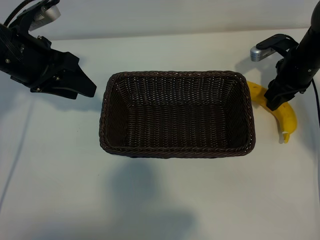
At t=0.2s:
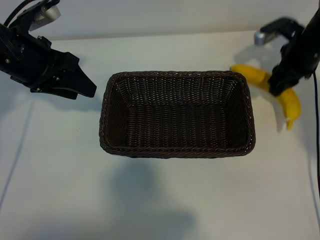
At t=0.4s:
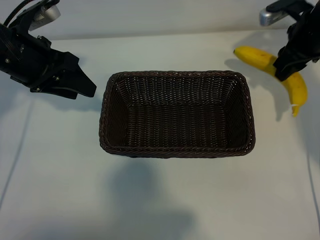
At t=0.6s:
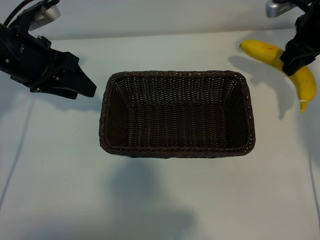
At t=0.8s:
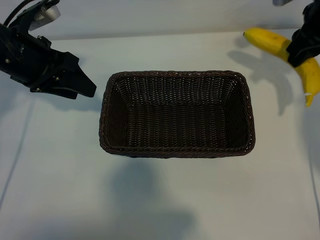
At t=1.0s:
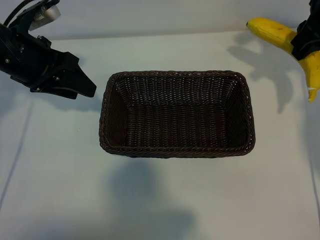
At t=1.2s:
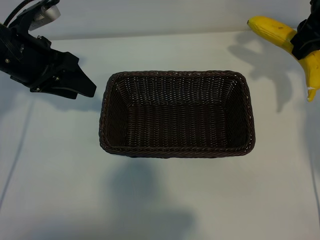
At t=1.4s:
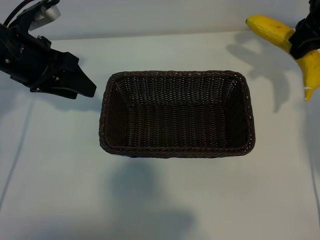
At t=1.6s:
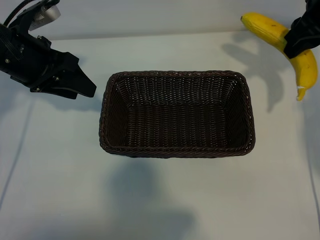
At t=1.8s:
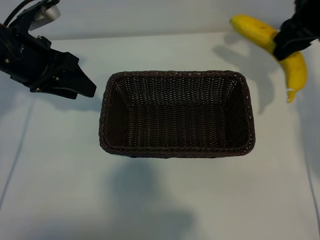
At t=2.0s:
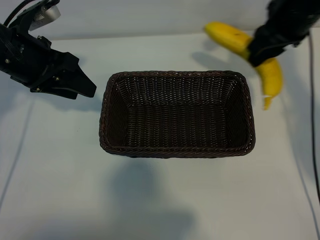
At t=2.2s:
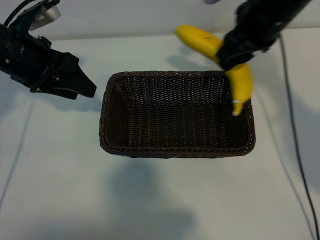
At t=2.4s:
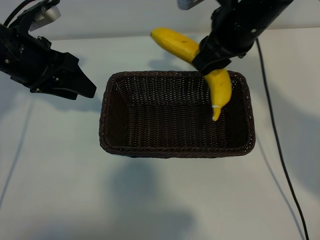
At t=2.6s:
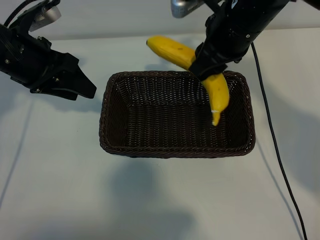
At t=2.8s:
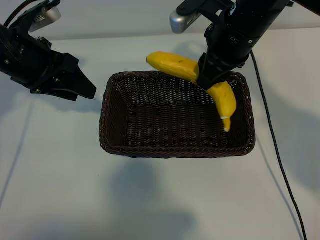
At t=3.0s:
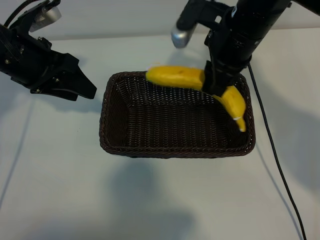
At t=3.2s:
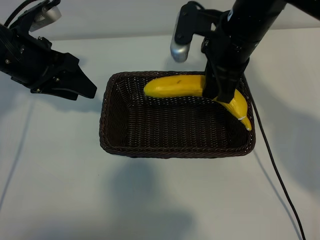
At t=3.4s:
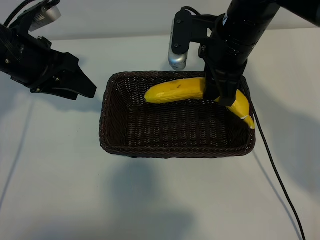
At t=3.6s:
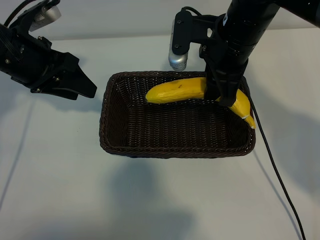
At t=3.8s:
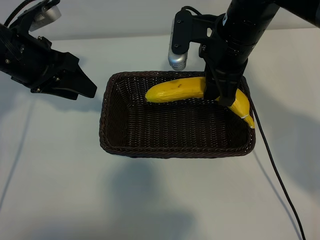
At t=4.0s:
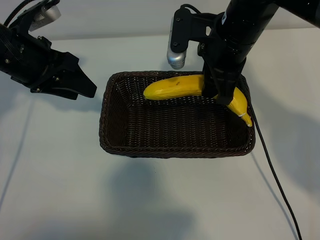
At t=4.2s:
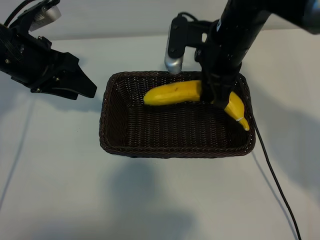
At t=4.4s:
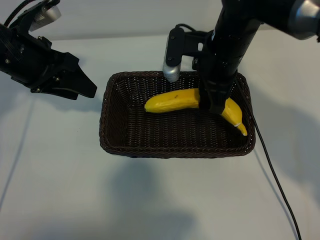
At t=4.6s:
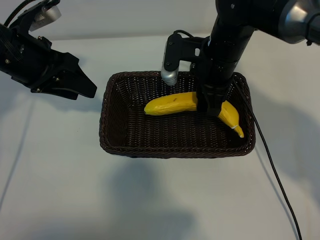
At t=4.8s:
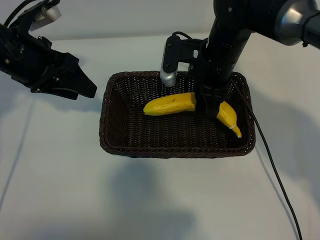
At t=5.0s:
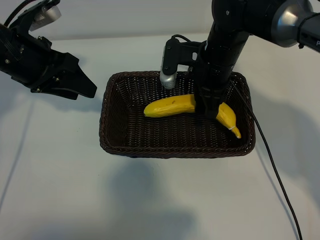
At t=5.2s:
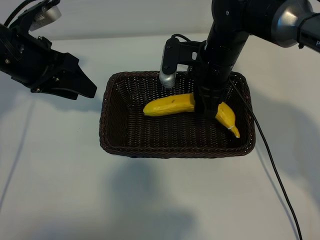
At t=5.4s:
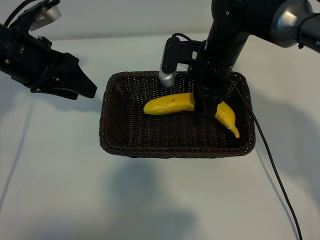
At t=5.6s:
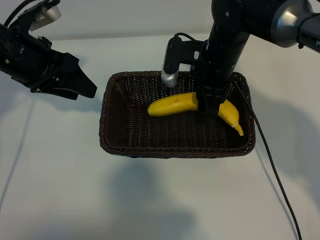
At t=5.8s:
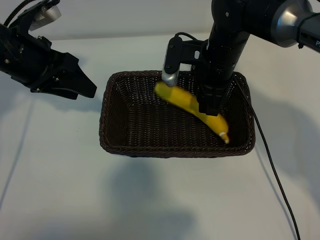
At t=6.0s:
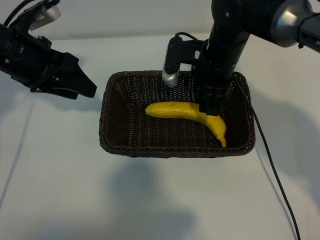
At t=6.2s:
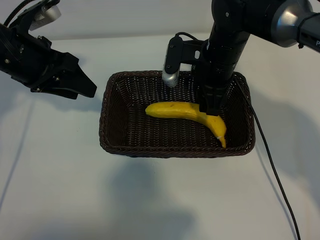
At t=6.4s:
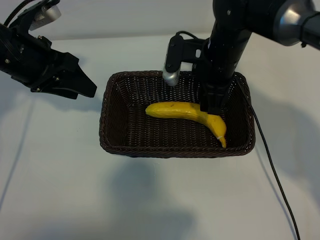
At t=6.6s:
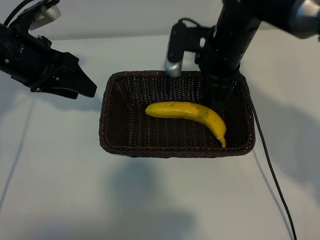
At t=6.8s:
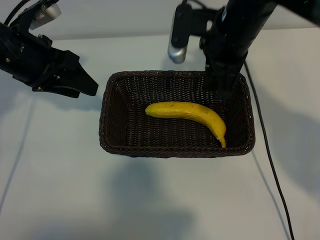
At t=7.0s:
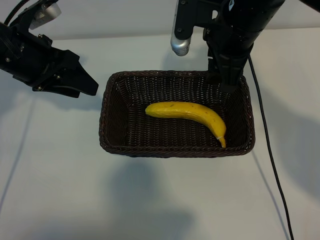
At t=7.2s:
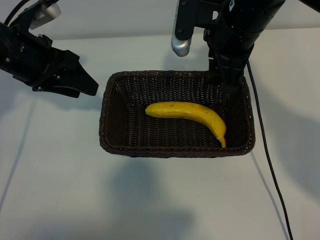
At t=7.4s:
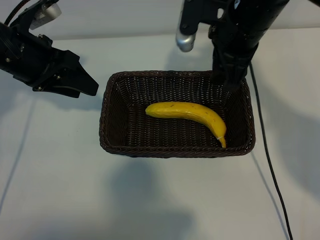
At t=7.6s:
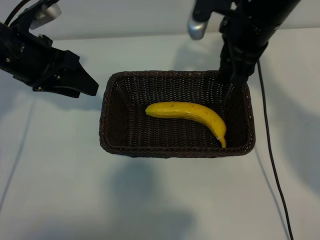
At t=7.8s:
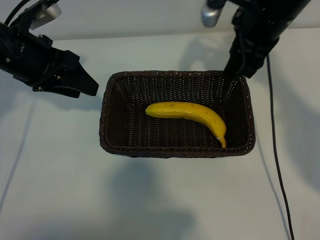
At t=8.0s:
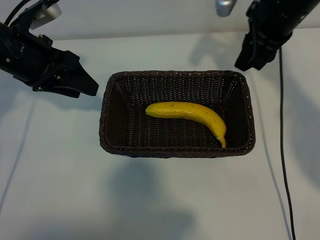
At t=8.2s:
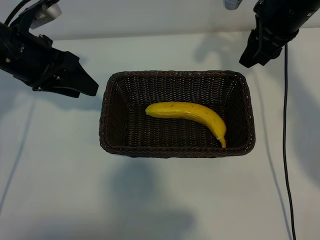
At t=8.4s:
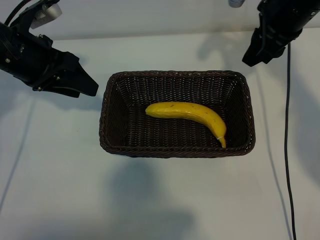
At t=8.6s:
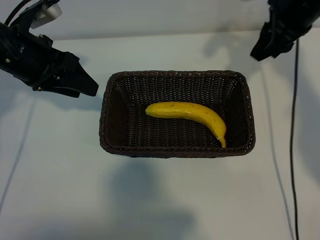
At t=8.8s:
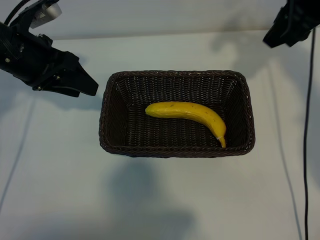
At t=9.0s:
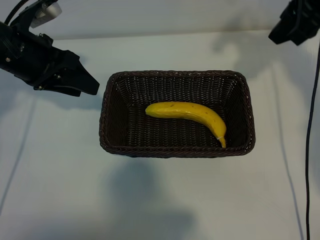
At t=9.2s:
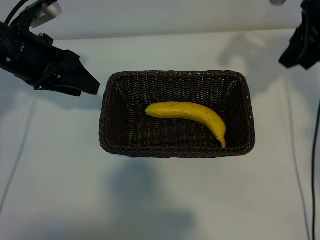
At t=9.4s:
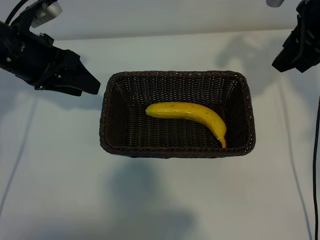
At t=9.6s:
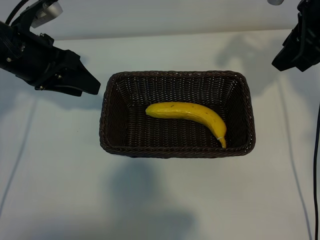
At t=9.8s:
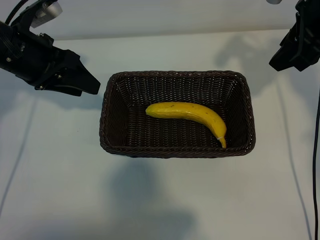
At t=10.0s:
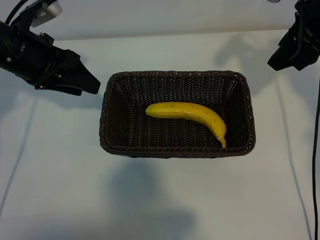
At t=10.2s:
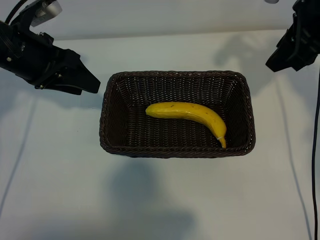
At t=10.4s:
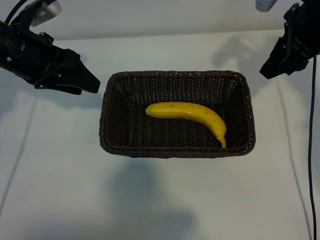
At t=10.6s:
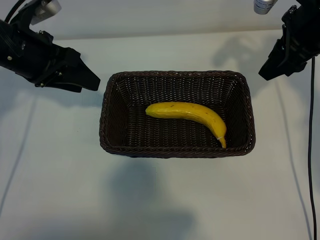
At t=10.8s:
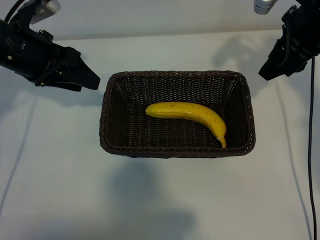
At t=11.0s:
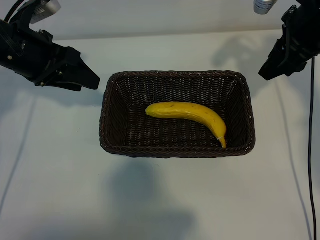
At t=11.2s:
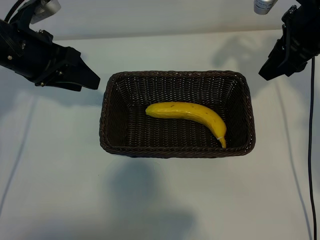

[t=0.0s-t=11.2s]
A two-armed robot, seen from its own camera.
Task of the whole recording: pick up the banana and put it into the basket.
Step, t=0.0s to t=6.0s: Place the banana in the basket with right gripper.

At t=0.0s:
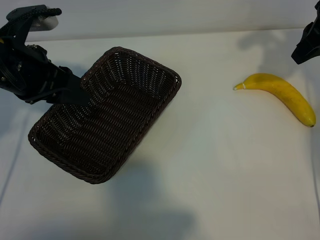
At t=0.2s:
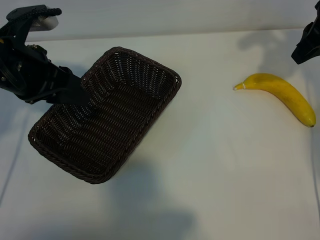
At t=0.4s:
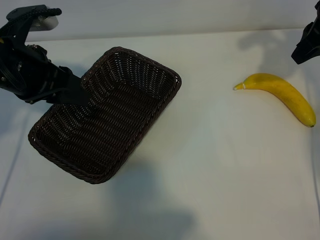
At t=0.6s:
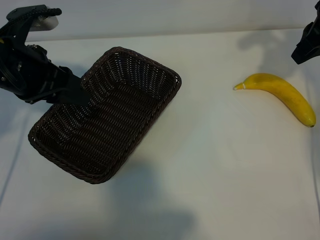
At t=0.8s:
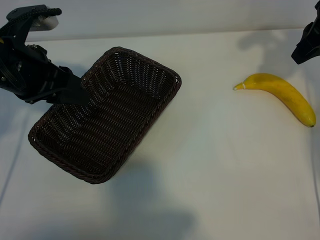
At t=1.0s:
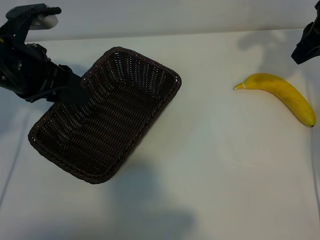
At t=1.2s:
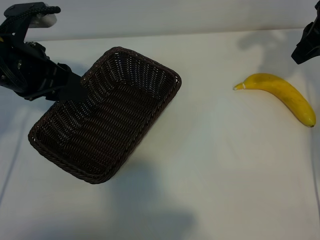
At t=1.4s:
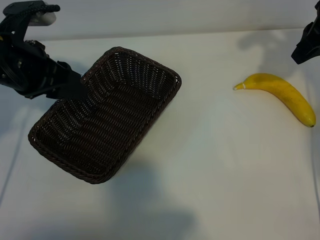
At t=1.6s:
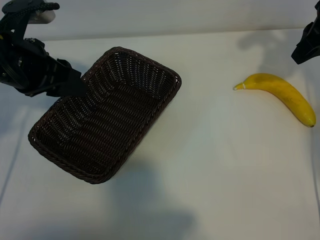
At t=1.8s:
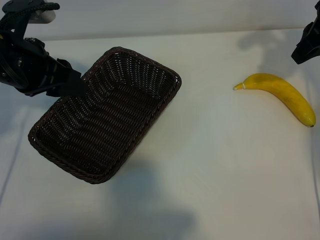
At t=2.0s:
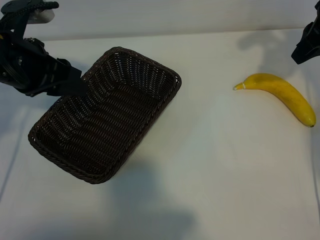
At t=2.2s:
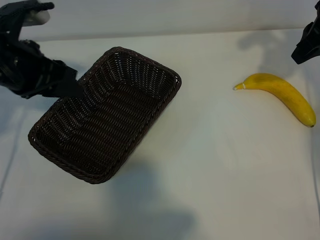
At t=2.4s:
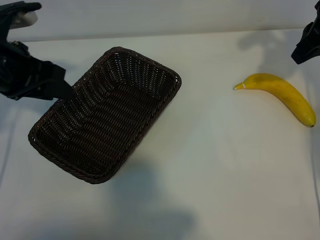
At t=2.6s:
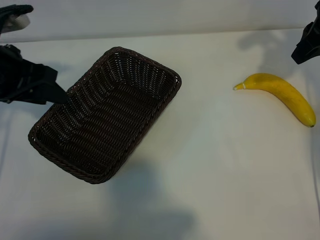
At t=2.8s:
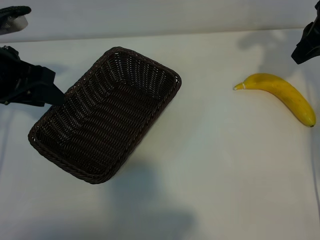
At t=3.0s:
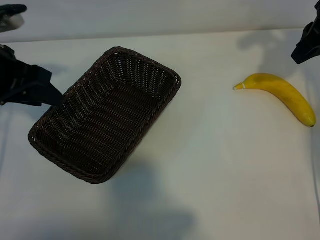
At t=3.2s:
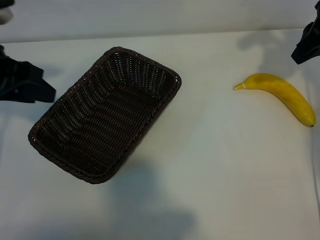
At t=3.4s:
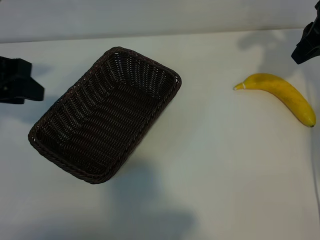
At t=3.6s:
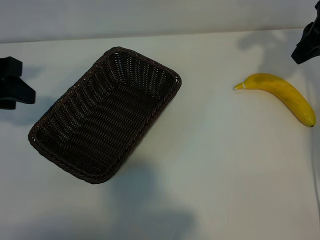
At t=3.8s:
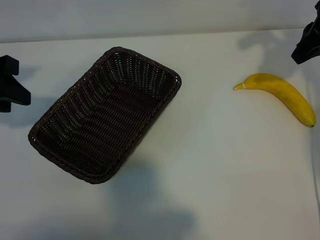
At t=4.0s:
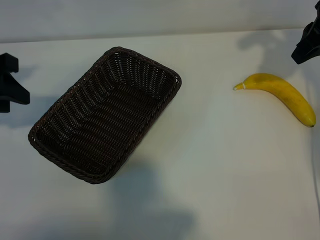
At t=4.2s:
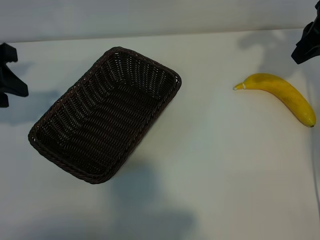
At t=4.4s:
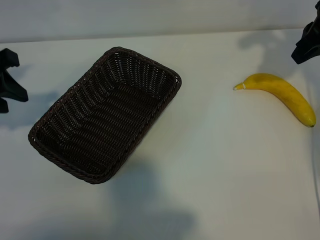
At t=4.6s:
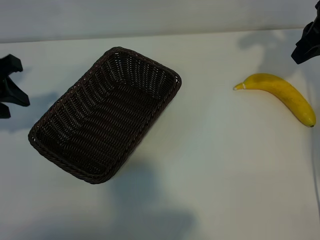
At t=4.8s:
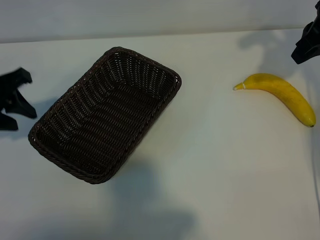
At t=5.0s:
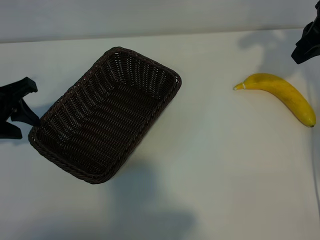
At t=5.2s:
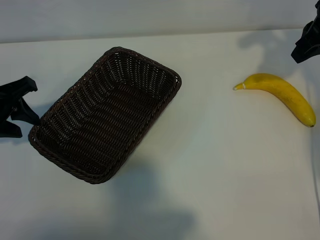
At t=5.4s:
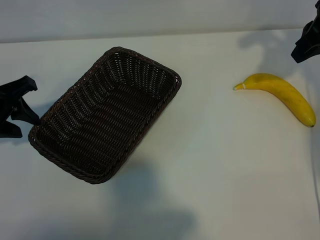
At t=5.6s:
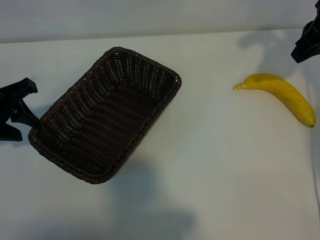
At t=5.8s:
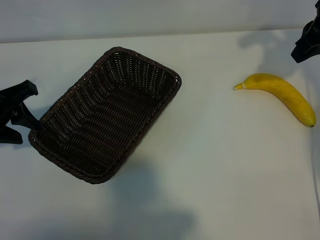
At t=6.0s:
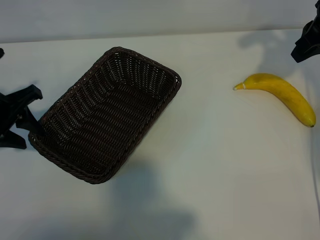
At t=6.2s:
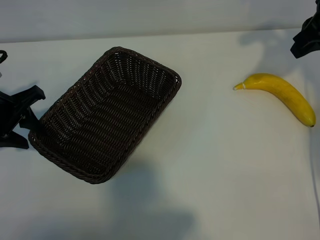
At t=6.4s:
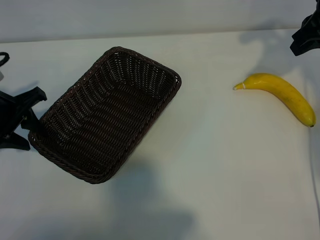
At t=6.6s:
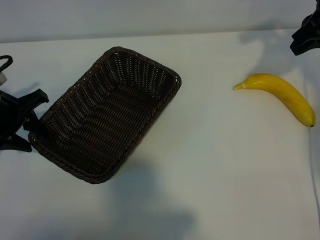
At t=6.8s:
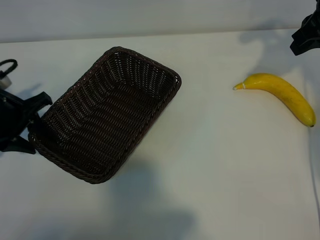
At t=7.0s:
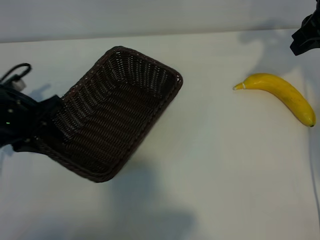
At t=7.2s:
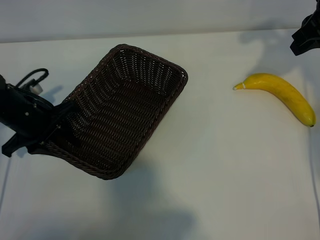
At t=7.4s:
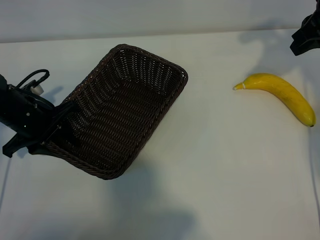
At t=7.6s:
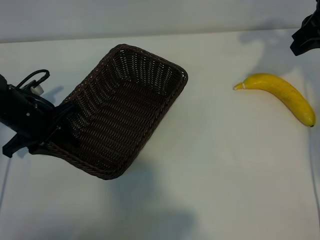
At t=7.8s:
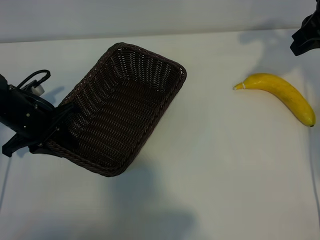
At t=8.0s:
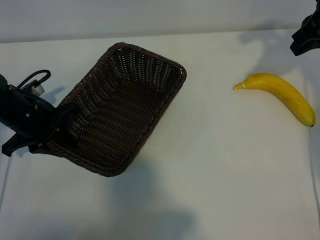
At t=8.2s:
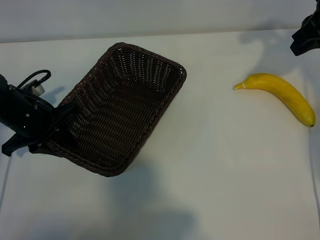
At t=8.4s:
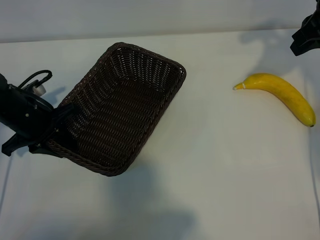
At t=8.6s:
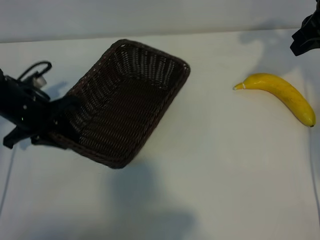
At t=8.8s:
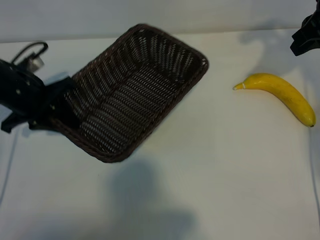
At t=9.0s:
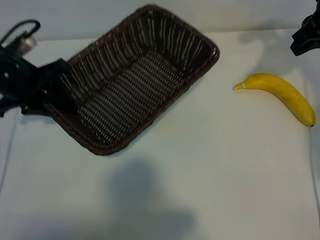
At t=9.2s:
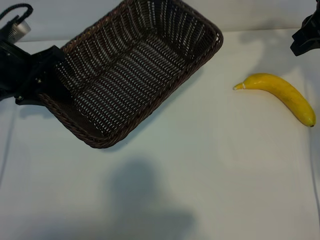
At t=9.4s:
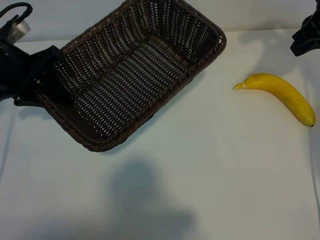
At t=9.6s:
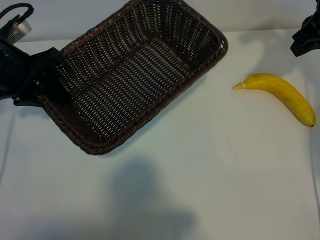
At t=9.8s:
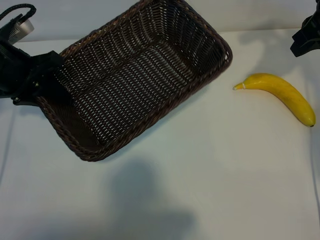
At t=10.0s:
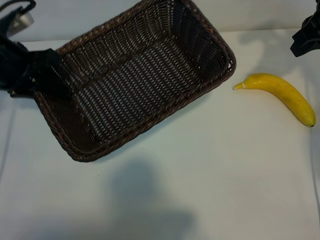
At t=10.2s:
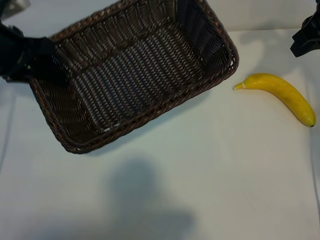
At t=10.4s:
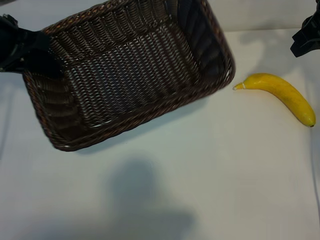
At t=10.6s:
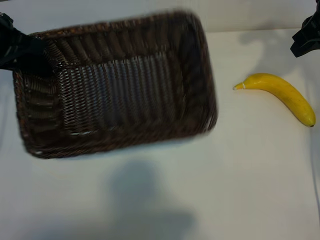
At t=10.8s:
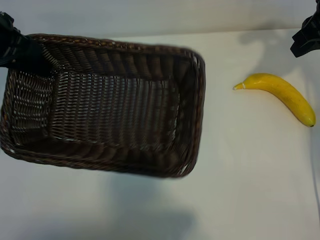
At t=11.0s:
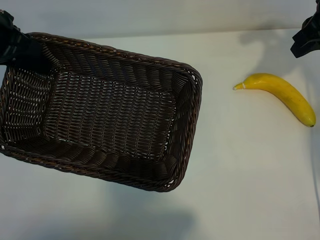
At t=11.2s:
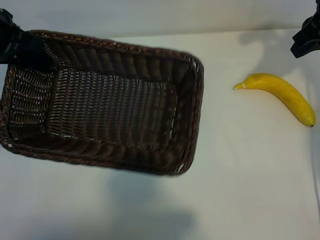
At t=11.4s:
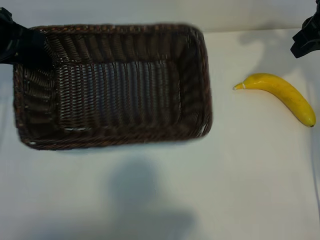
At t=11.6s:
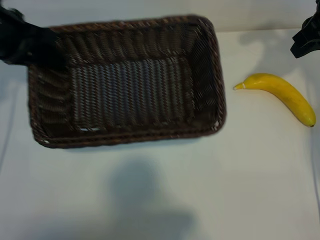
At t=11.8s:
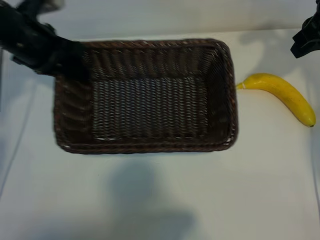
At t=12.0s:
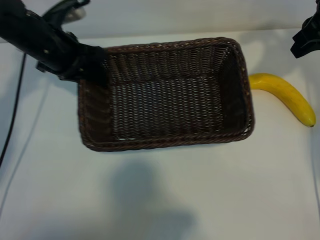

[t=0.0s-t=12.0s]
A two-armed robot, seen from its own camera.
Task of the whole recording: pick up the banana and put it into the basket.
Step, t=1.0s to t=8.2s: Grasp the basket with the left gripper.
